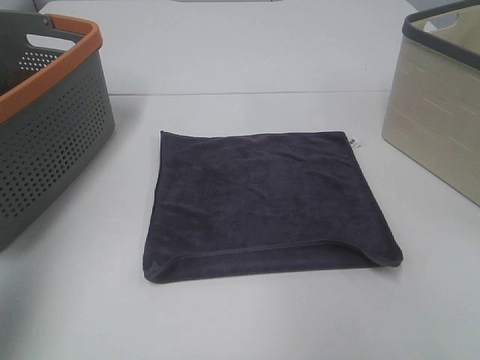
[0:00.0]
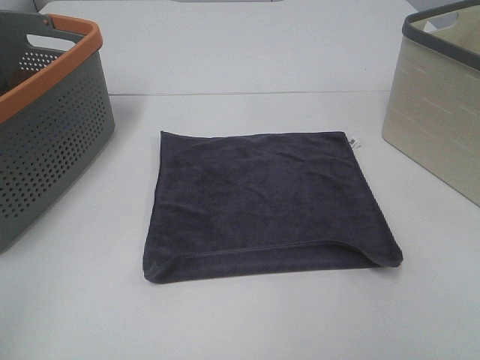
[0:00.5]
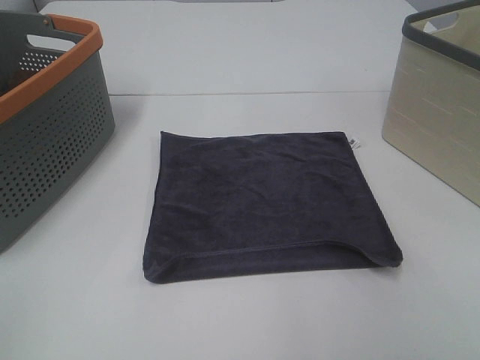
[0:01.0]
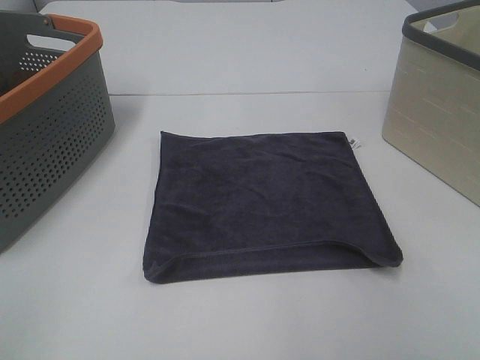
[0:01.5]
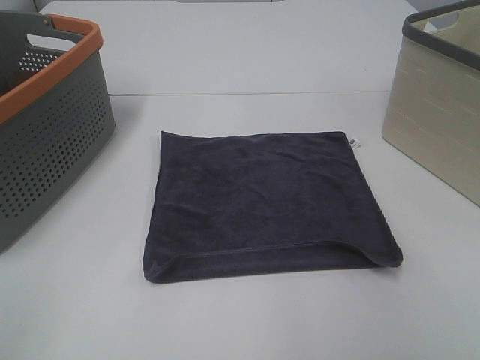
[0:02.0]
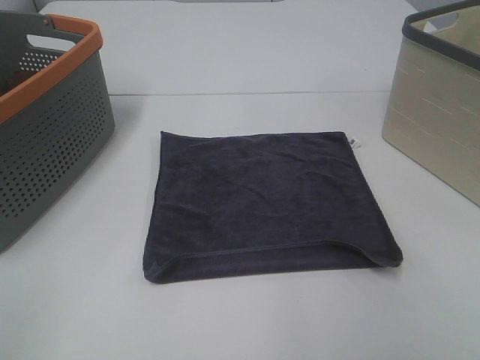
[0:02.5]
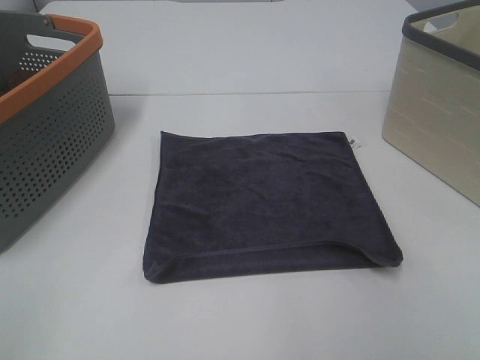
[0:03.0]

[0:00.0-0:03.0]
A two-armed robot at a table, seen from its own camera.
Task of the whole recording: Remove the towel and place it.
0:00.0 to 0:01.5: The left gripper travels backward and downward by roughly 20 cm.
0:01.5 to 0:03.0: Neither gripper changes place.

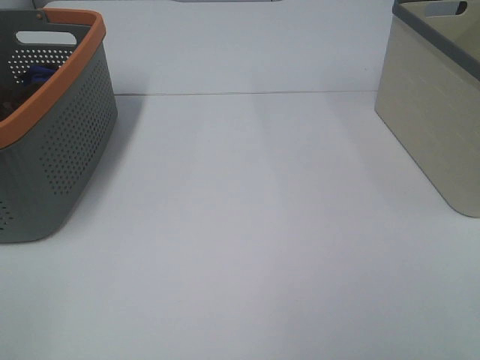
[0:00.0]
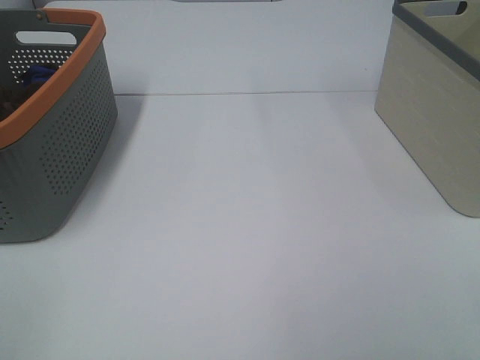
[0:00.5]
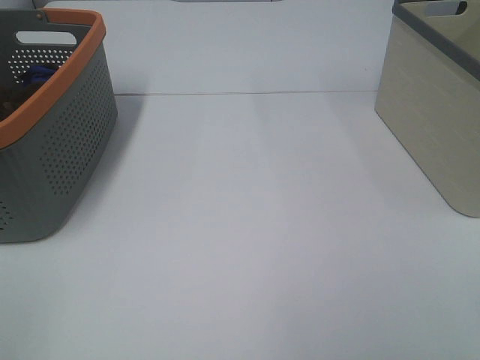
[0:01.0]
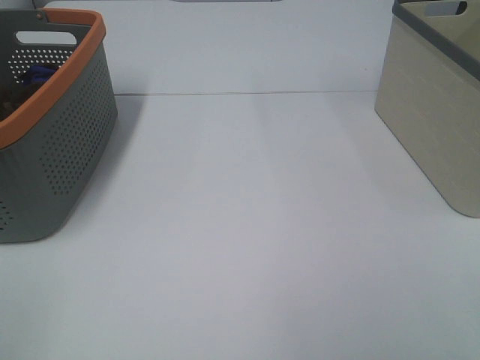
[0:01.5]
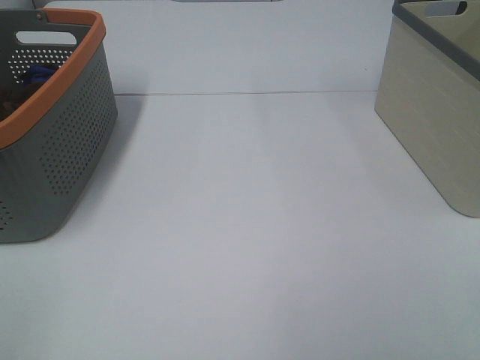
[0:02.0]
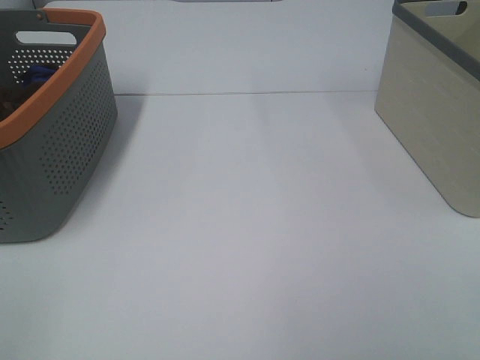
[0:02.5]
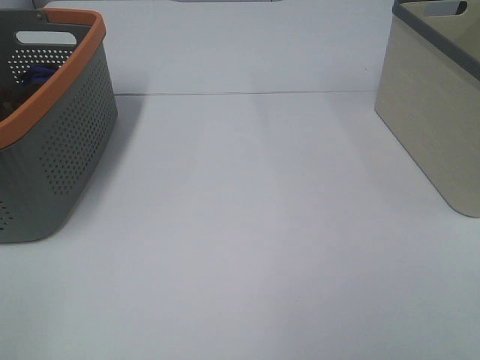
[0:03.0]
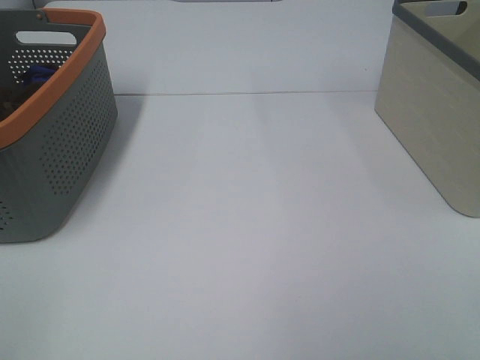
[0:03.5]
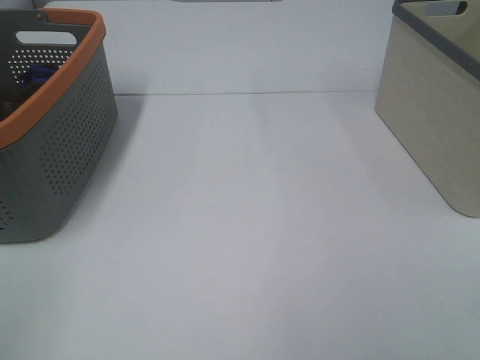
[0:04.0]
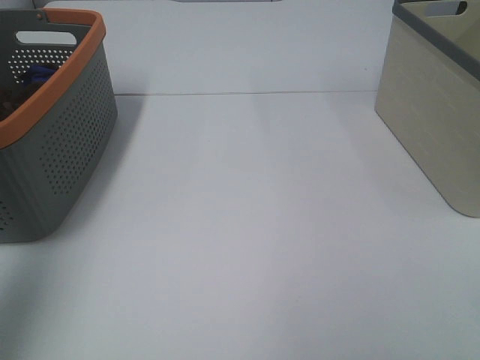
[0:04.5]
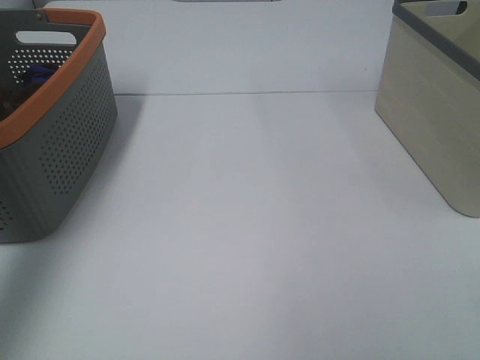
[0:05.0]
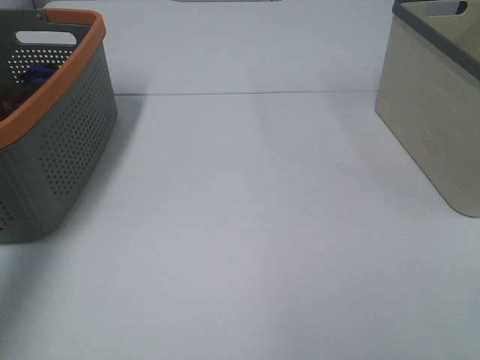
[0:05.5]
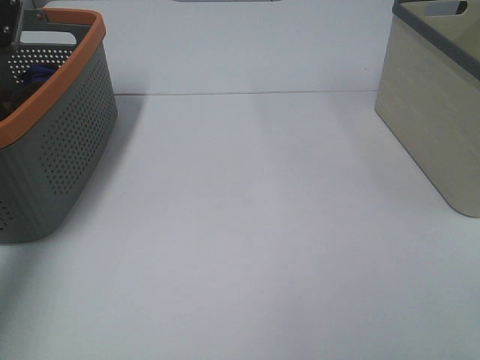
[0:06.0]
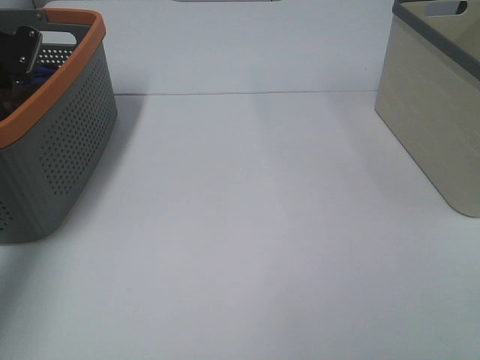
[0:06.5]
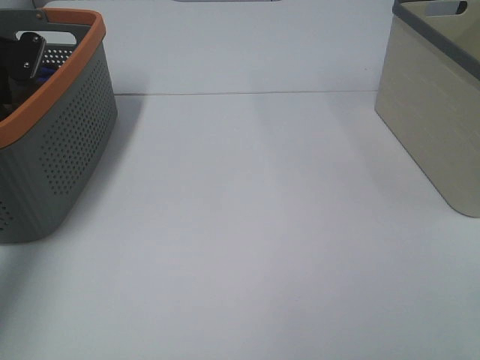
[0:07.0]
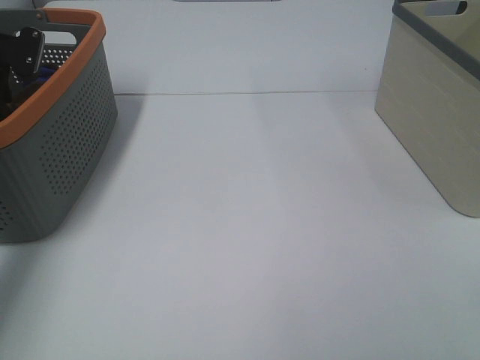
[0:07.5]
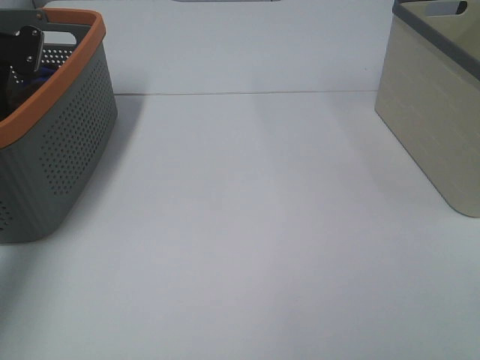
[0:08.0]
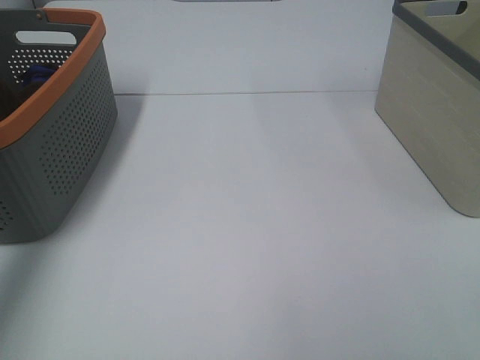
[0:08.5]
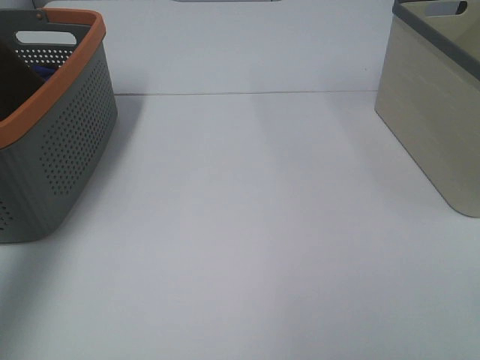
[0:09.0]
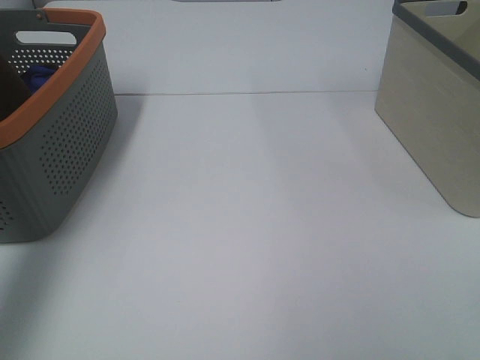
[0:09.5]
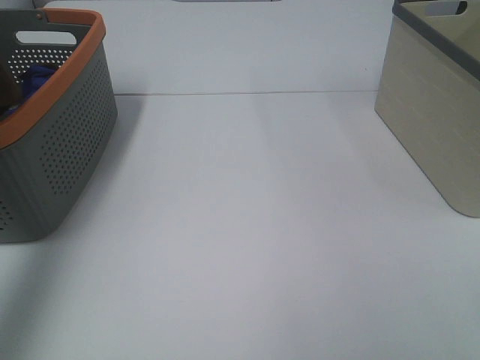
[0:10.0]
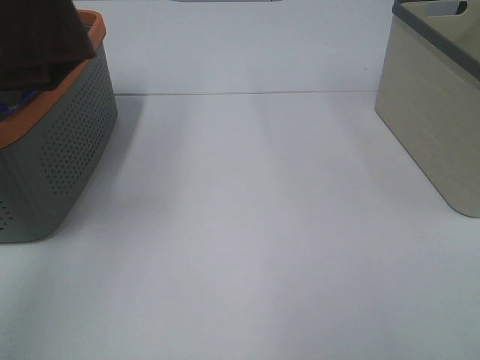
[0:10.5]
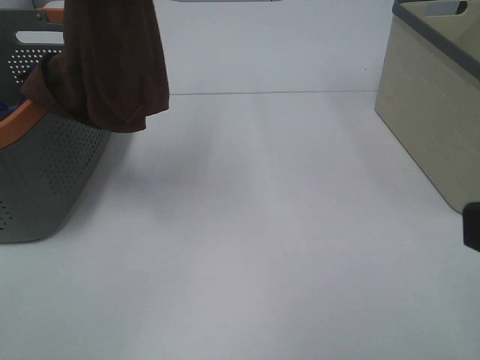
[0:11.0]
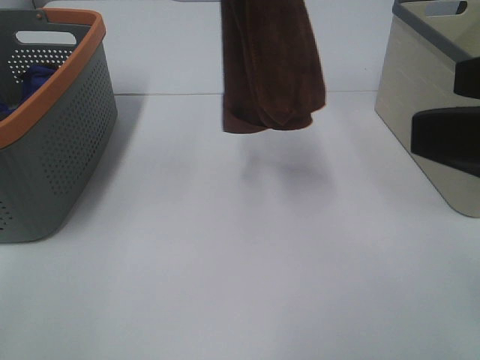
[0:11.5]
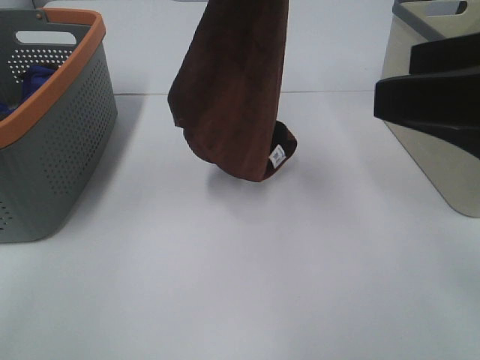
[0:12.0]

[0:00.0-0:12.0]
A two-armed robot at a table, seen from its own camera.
Task of the whole recording: Remove the towel and place it.
0:00.0 to 0:02.0: Both grippers stay put.
0:04.0 to 0:06.0: The left gripper shifts about 40 cm forward.
0:06.0 to 0:08.0: The left gripper closes up.
0:08.0 to 0:10.0: The left gripper moves upward and backward, some 40 cm.
0:10.0 to 0:12.0: The left gripper moves to the right, approximately 25 cm. The right gripper goes some 15 cm forward.

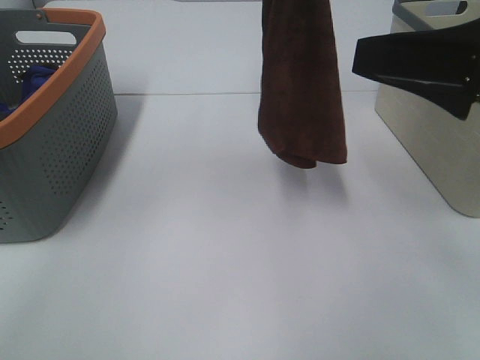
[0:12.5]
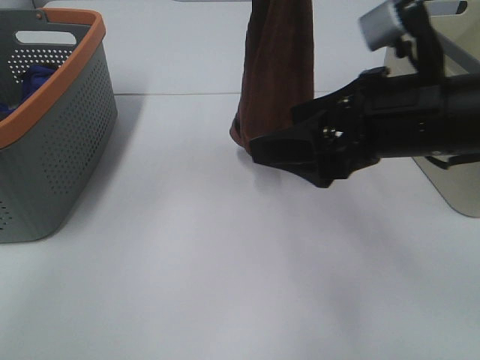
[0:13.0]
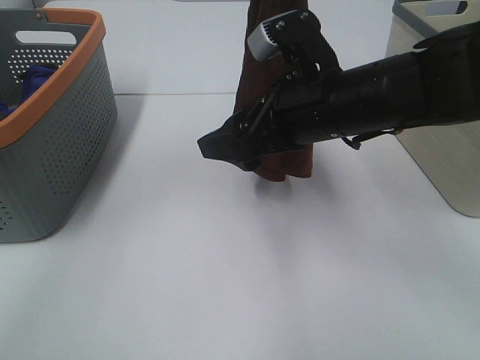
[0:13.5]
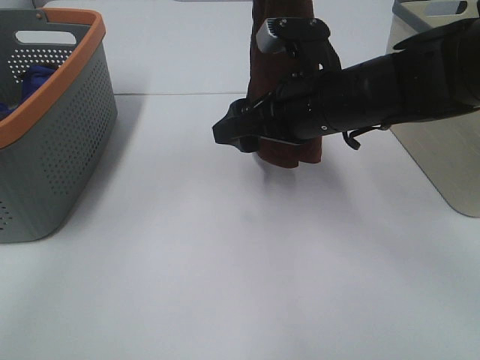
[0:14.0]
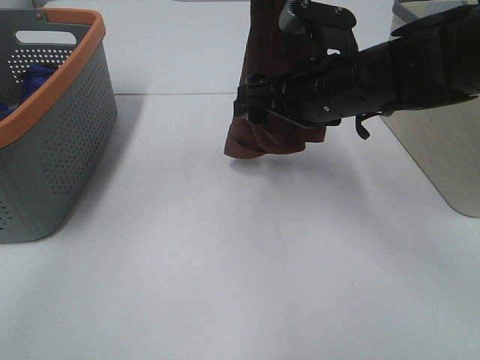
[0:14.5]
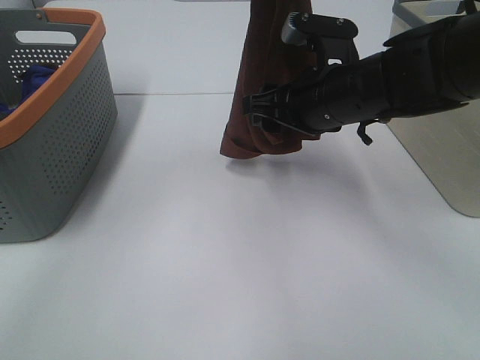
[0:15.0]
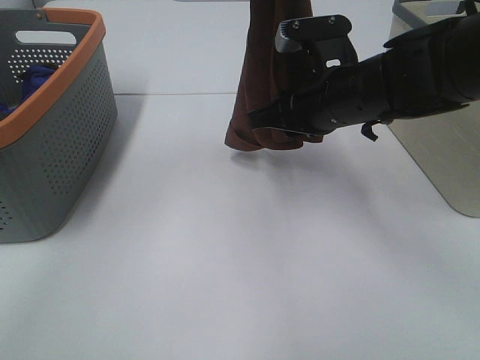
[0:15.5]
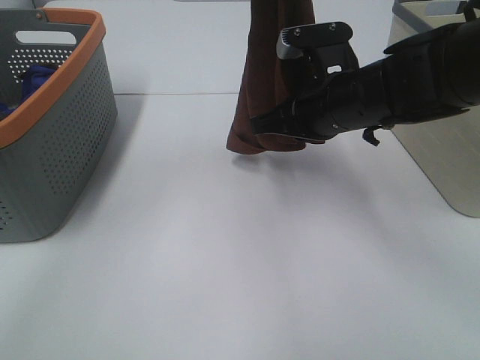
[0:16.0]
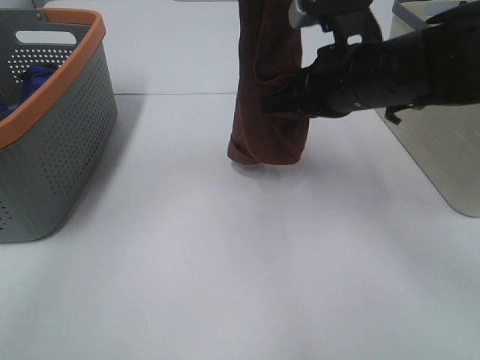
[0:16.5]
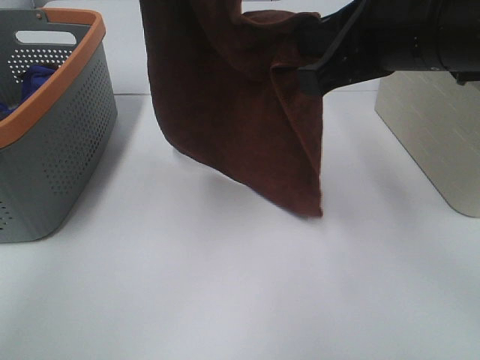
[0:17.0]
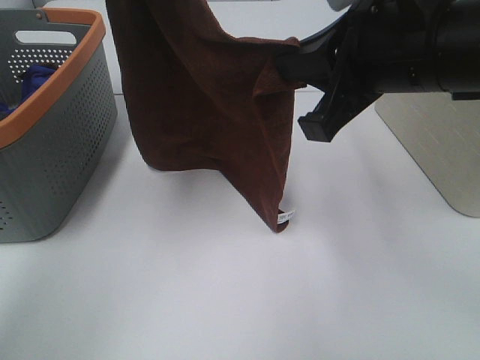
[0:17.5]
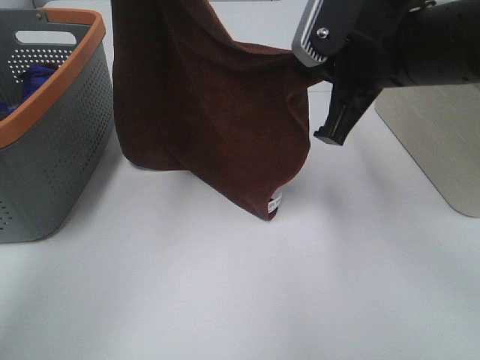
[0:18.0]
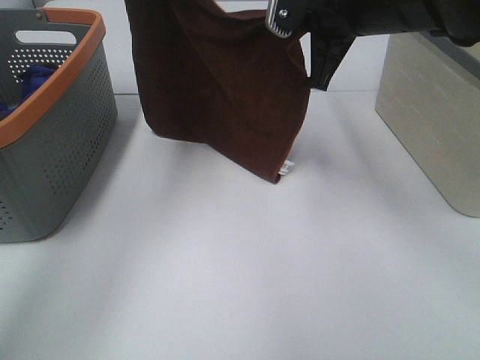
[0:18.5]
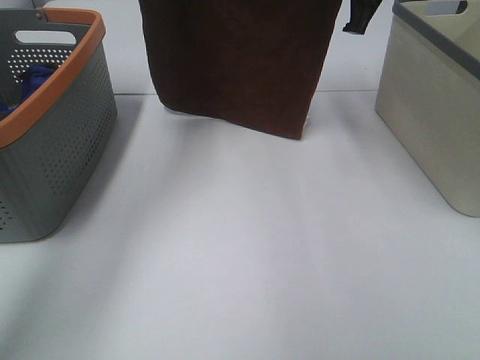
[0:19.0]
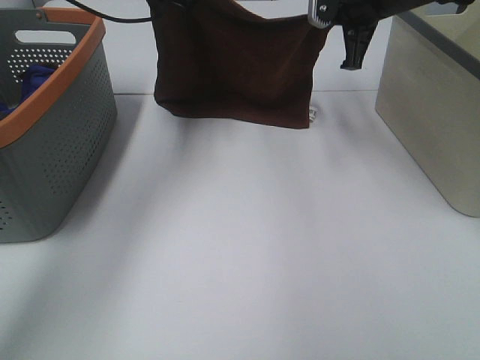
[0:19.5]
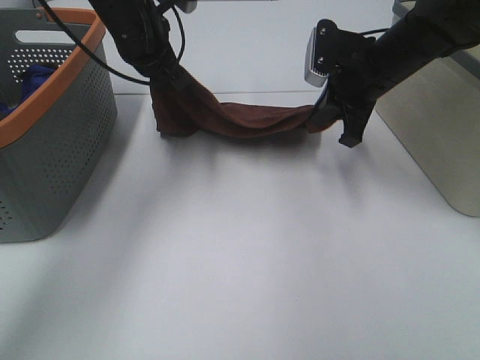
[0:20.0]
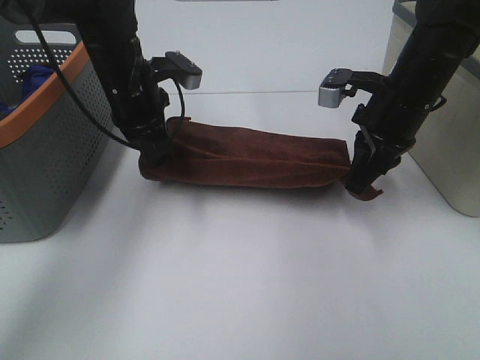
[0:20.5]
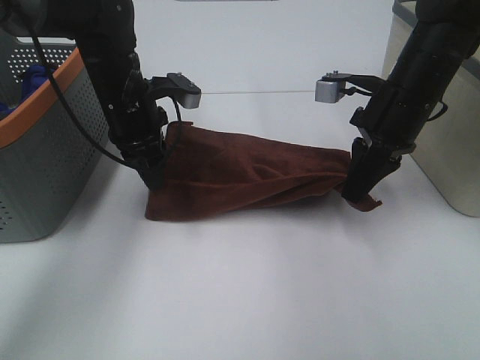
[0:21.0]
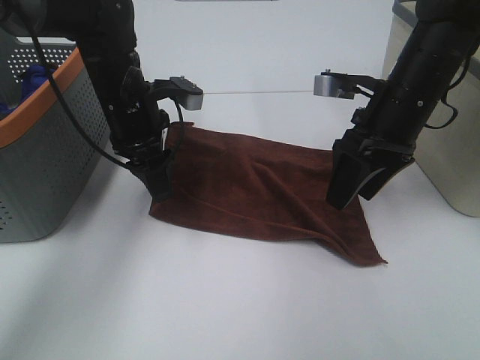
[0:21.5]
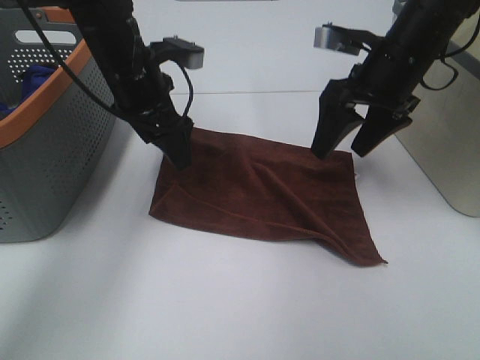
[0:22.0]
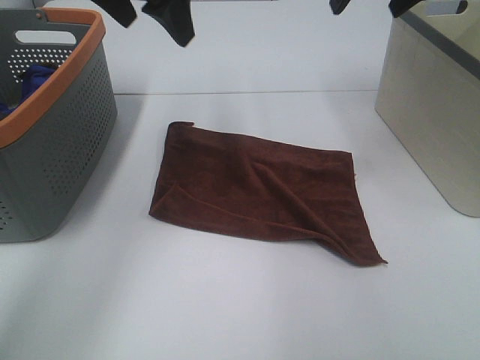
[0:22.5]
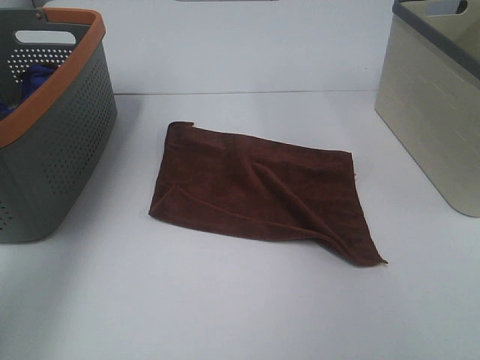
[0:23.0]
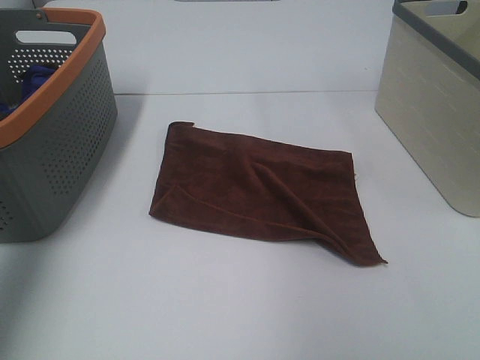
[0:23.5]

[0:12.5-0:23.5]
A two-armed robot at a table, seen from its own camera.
Task of the whole recording: Remove the towel and place it.
Step, 0:14.5 to 0:16.5: Left hand: spread the brown towel flat on the table.
Step, 0:14.5 to 0:17.0: Right hand: spread the brown towel flat on the table.
0:12.5 to 0:14.5: The right gripper is displaced forward, to the left and downward by about 20 cm.
0:14.5 to 0:16.0: The right gripper closes up.
0:16.0 to 0:18.0: The left gripper shifts roughly 10 cm to the left and forward. Meanwhile the right gripper travels upward by about 10 cm.
0:18.0 to 0:20.0: The left gripper goes approximately 15 cm downward, while the right gripper travels forward and downward by roughly 15 cm.
0:20.0 to 0:21.5: The left gripper shifts about 10 cm downward and backward, and opens its fingers, while the right gripper moves backward, about 5 cm, and opens its fingers.
0:21.5 to 0:23.5: The right gripper shifts approximately 30 cm upward, backward and to the right, while the left gripper heads upward, to the left and backward, covering about 35 cm.
